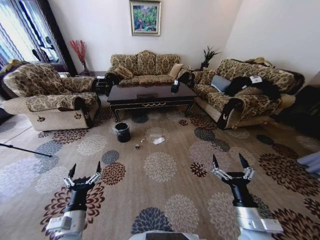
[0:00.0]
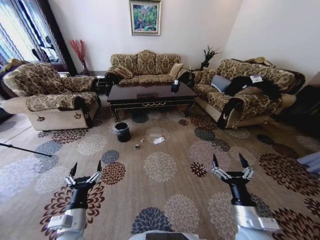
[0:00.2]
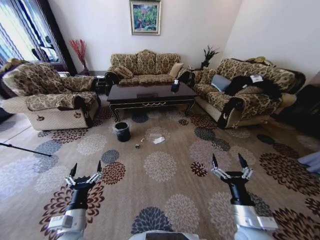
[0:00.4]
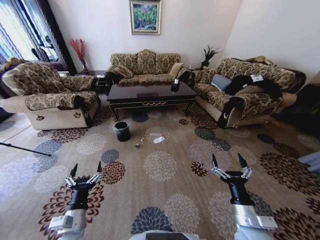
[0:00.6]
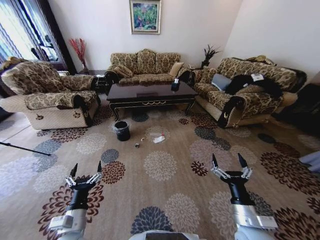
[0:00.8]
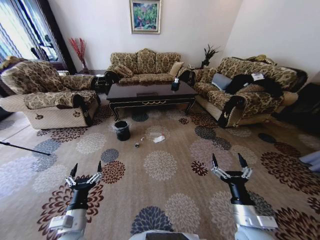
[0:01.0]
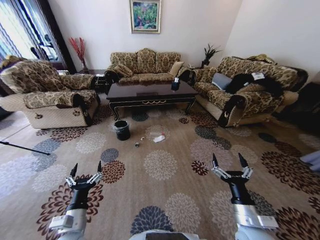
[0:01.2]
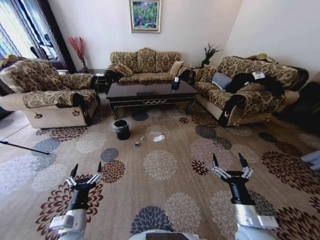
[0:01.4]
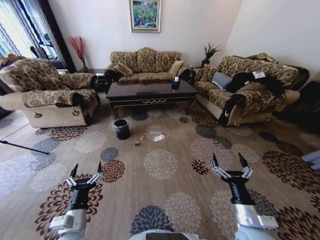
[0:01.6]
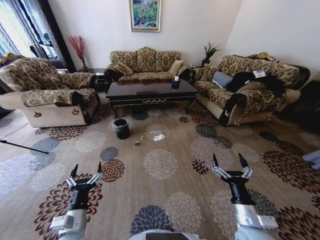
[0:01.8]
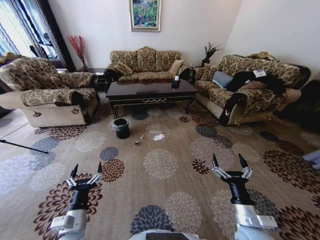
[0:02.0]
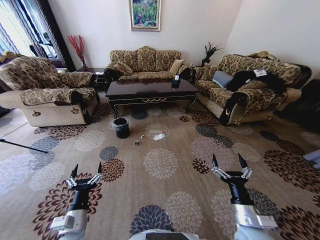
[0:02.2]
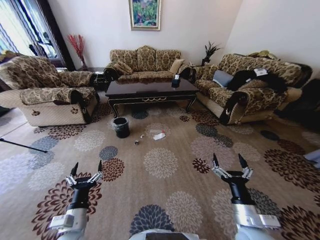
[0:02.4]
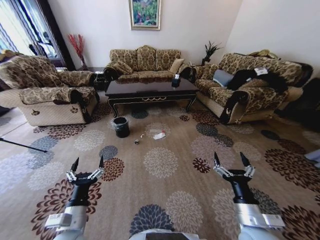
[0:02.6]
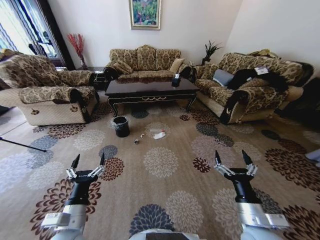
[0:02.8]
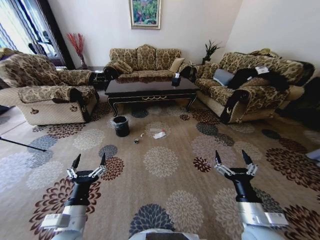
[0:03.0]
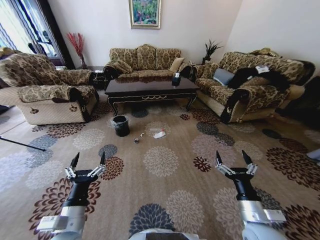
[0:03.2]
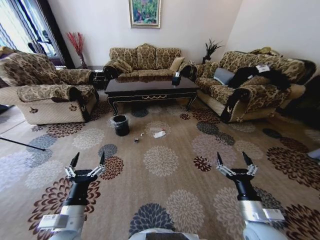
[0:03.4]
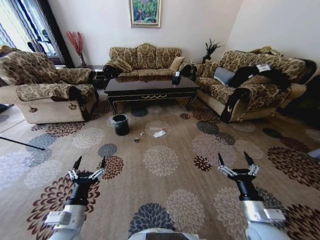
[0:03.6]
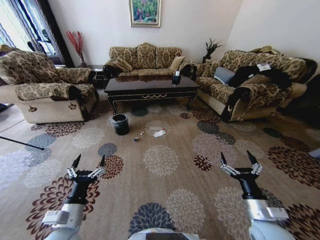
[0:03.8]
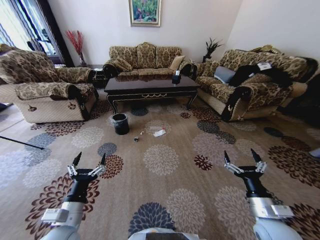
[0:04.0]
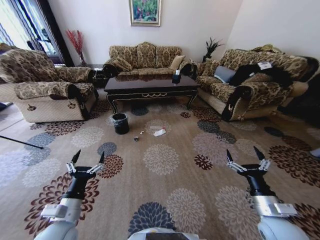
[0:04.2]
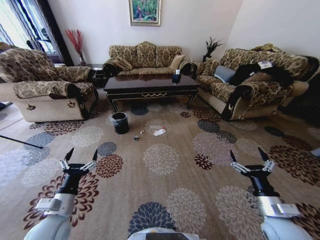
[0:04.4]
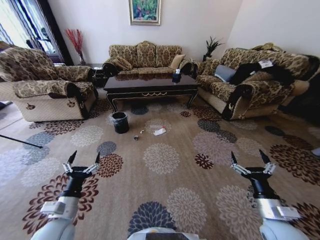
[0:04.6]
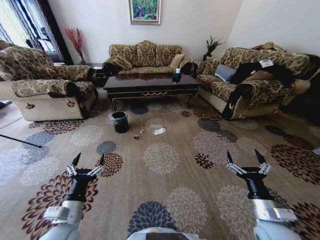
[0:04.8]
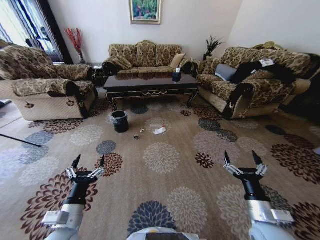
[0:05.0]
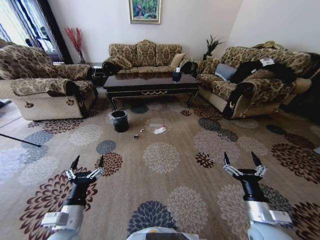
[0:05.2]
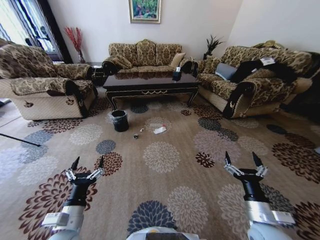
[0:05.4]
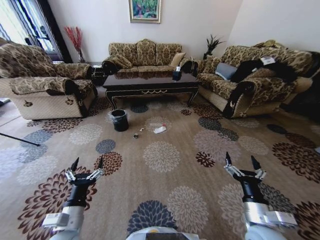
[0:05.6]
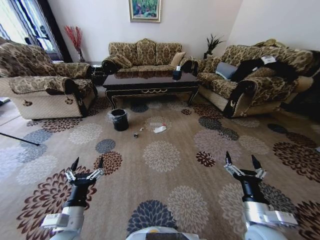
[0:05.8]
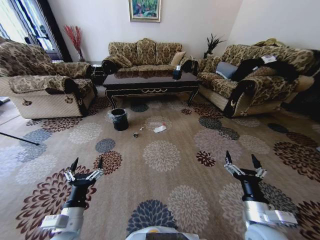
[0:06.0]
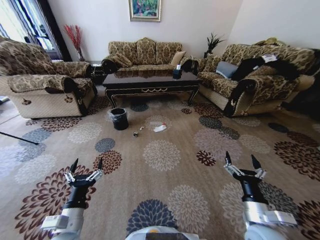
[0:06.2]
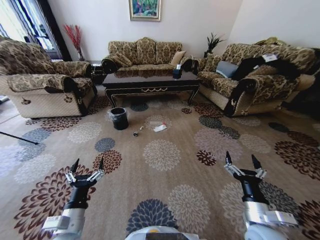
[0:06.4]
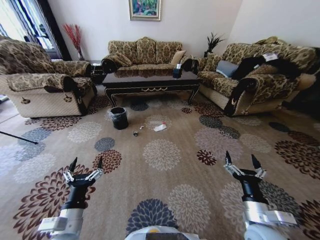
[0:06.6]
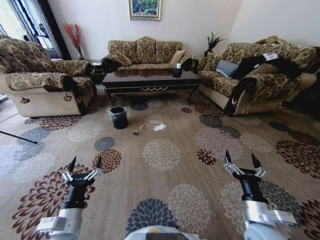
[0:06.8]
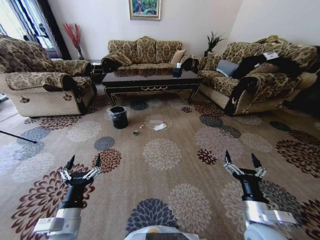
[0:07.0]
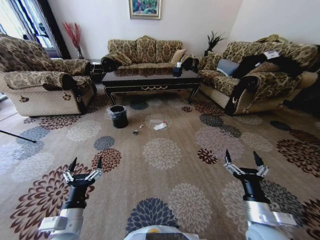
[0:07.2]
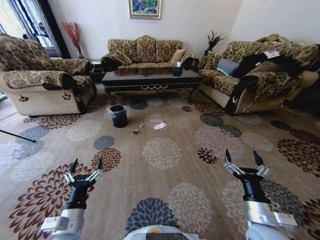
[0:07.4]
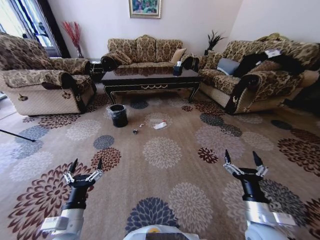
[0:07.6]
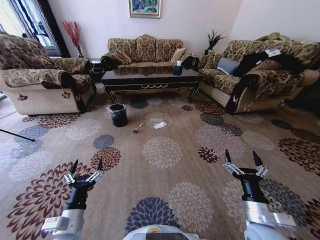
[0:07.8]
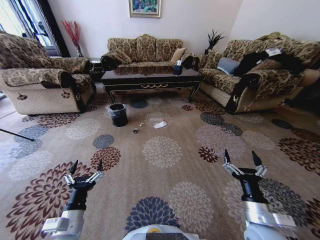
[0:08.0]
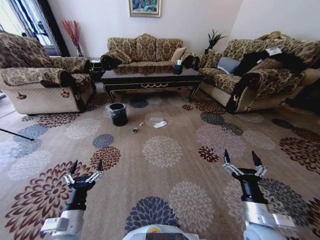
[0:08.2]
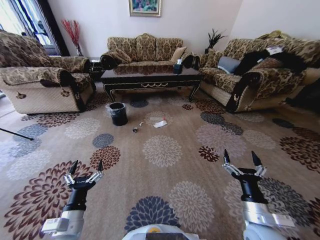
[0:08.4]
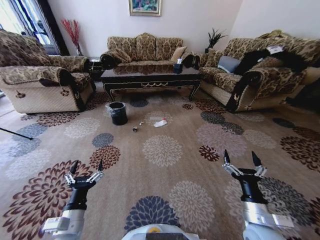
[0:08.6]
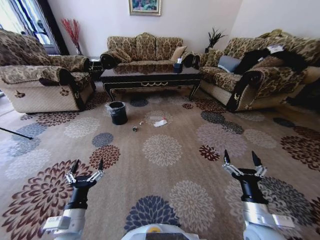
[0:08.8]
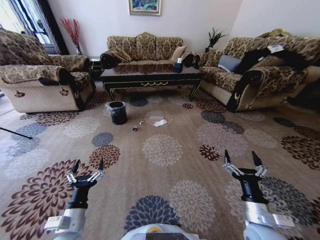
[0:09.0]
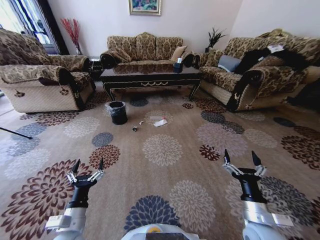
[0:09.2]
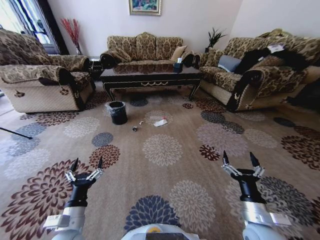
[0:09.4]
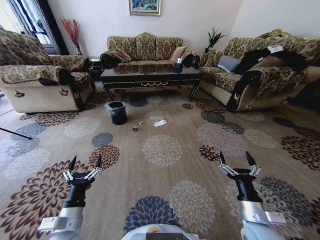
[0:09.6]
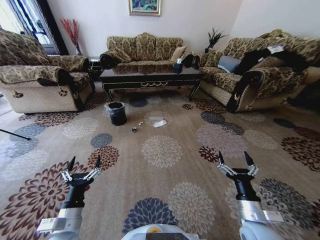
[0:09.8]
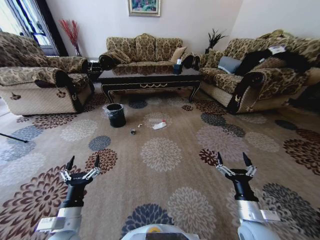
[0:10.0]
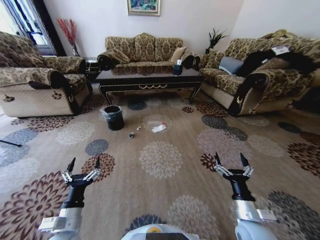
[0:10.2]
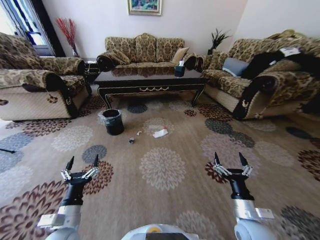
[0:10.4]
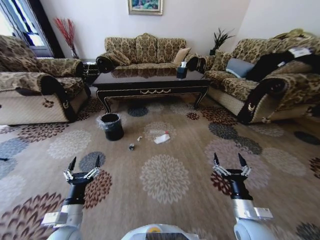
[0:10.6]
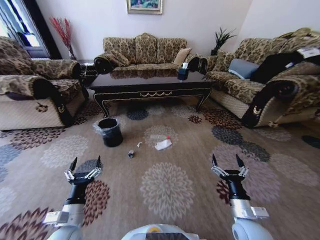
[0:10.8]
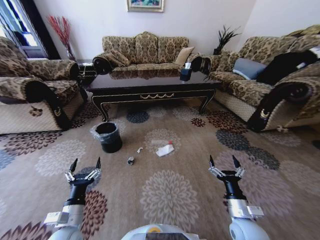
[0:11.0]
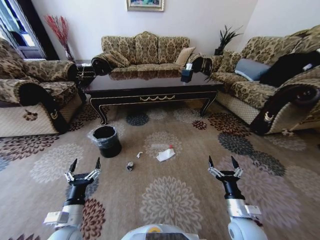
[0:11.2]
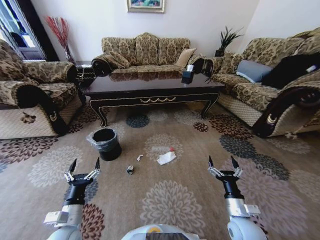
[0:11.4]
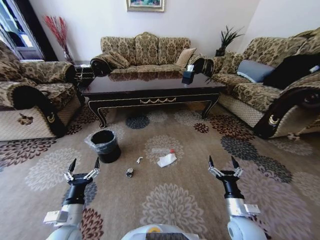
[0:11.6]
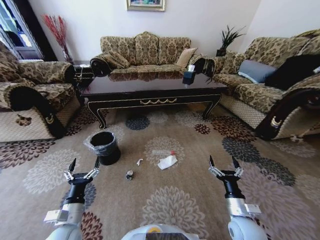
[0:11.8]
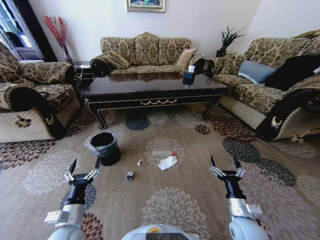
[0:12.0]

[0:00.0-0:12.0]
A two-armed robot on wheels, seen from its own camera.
Task of the whole recording: Move to the front of the table and pick up the trash from the floor, then place it into the trash bin.
0:01.6 to 0:03.0: The left gripper moves upward, about 5 cm.
0:03.0 to 0:04.4: The right gripper is displaced to the right by about 10 cm. The left gripper moves to the left, some 5 cm.
0:04.4 to 0:06.0: The left gripper is displaced to the right by roughly 5 cm. The right gripper goes about 5 cm to the left.

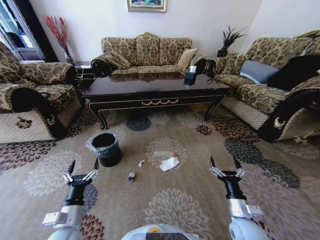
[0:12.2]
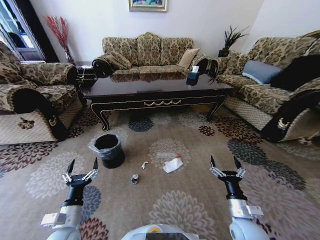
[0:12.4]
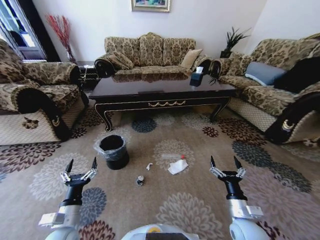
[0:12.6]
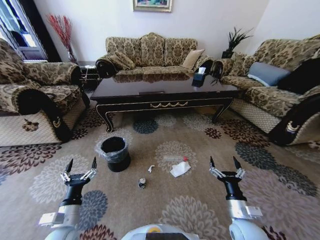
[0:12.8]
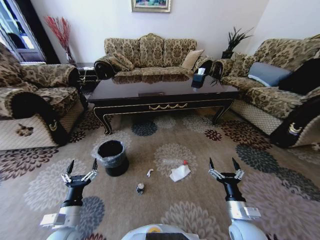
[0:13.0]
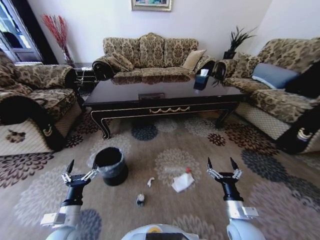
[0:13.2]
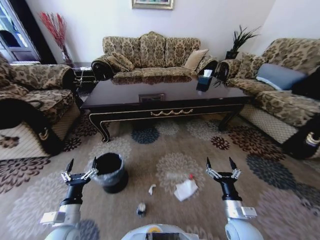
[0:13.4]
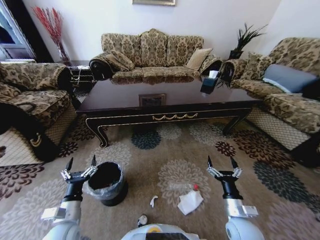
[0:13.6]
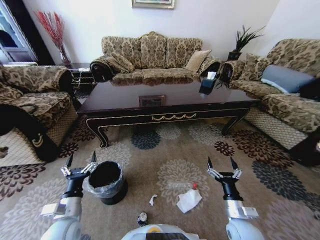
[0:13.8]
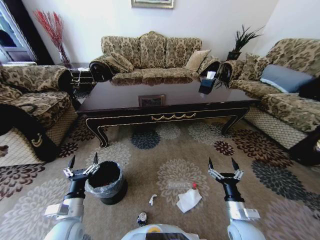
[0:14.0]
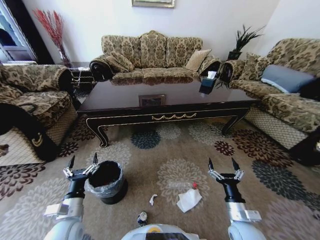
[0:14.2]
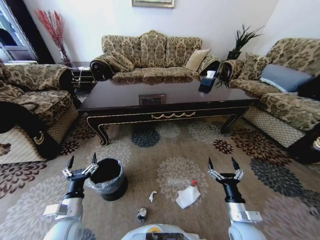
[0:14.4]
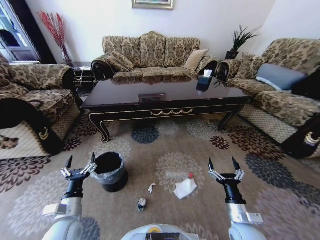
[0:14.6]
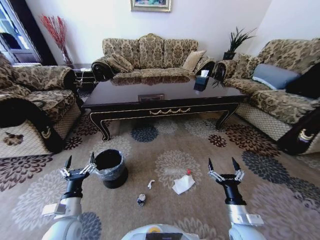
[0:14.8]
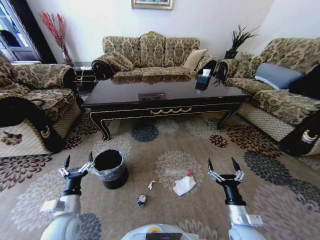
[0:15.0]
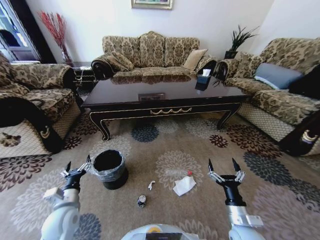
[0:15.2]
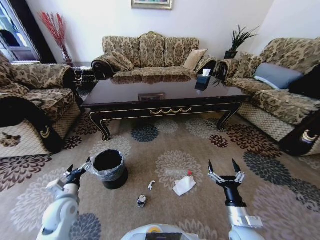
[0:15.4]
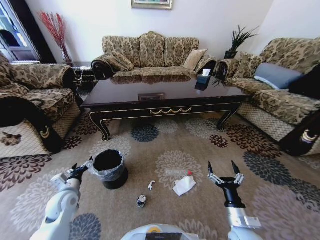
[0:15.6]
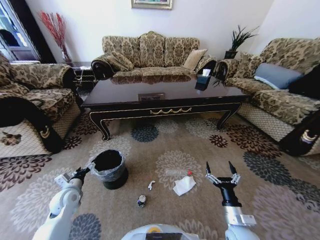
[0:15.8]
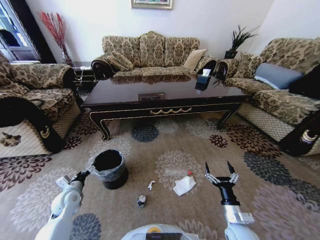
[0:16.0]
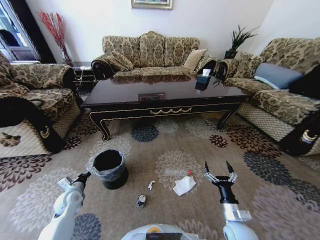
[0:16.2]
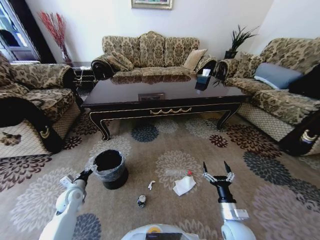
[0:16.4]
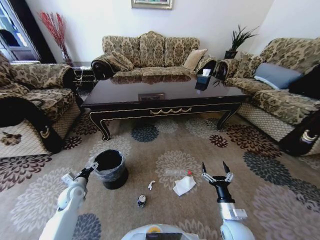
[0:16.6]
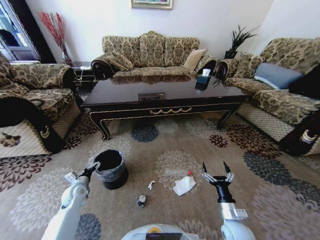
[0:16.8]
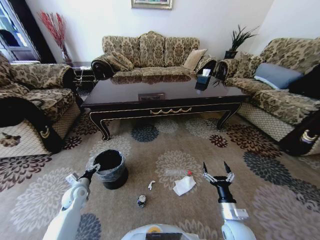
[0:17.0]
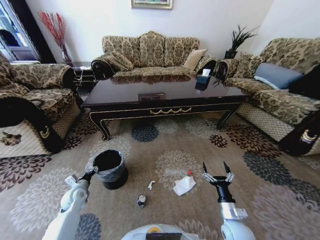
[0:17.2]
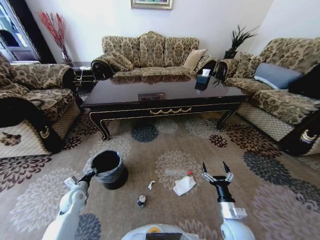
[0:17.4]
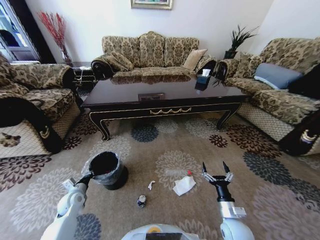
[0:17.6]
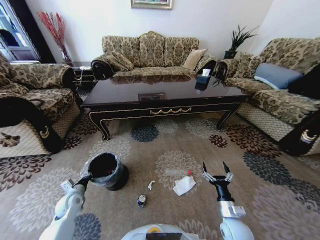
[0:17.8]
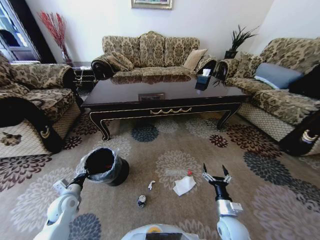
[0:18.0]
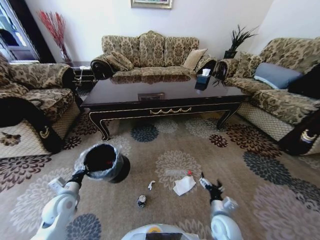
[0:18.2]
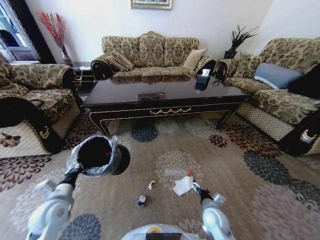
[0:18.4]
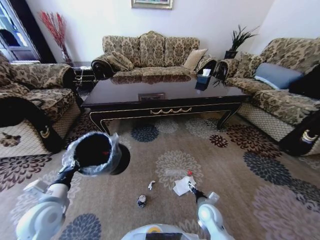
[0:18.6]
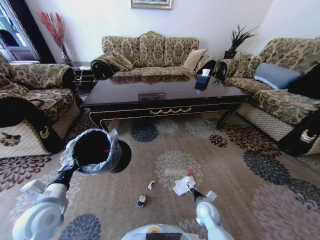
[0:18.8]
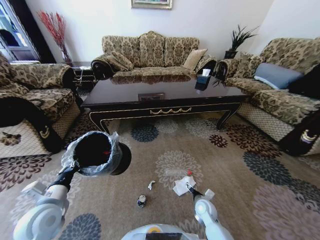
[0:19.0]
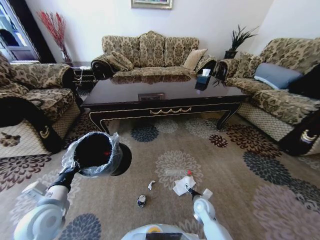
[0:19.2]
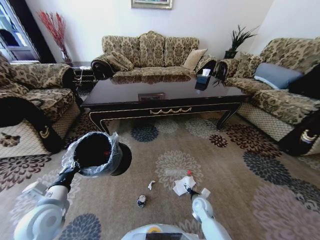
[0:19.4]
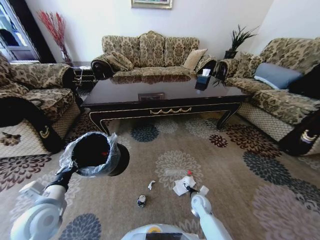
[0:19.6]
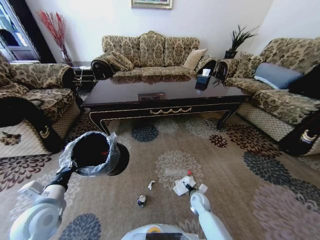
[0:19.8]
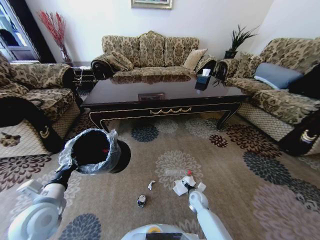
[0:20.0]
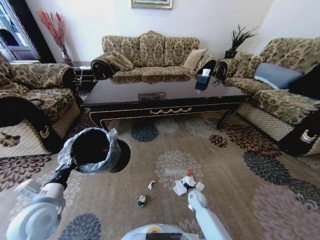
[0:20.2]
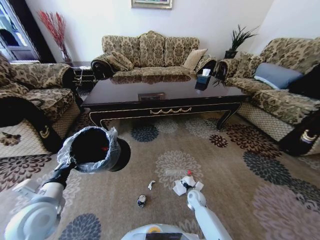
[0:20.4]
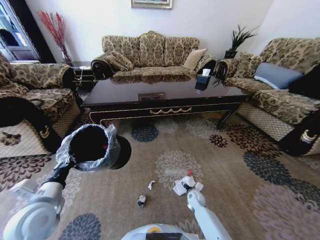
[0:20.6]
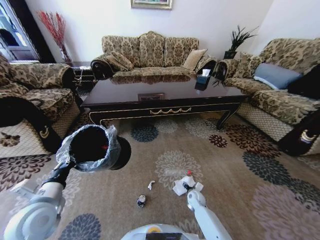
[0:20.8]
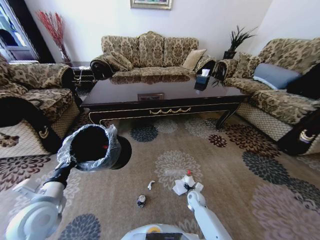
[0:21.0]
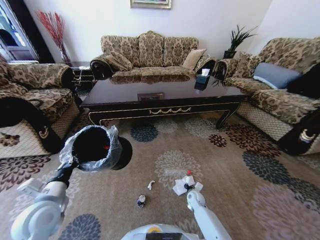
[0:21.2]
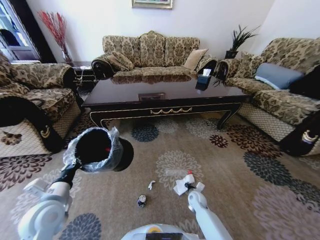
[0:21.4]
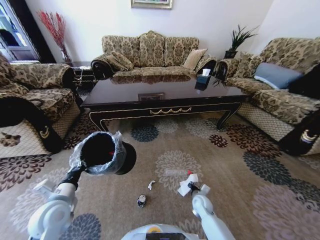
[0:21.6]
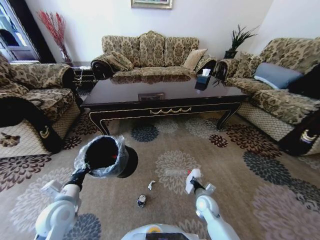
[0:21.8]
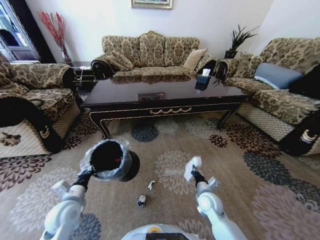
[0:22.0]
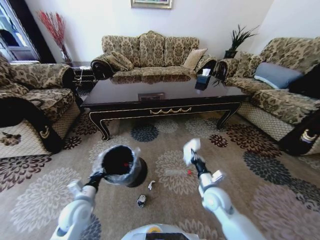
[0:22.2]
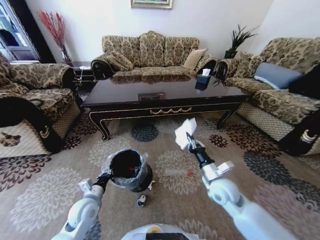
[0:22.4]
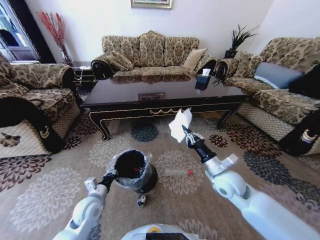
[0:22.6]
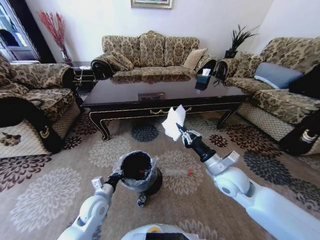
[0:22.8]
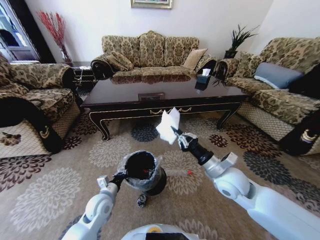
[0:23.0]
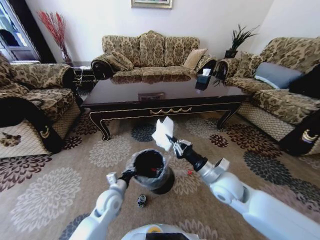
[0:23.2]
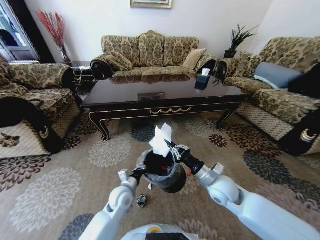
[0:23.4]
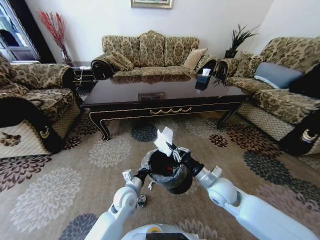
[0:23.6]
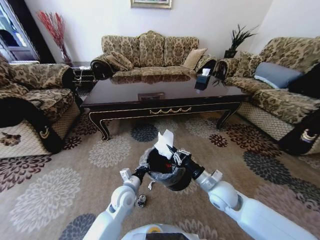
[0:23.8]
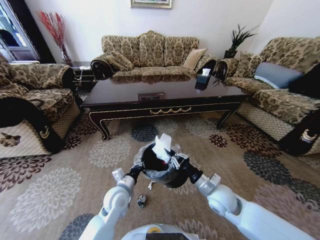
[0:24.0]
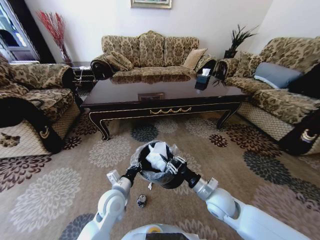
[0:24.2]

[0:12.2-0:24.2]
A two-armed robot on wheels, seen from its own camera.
Task of the whole recording: Move to the front of the table and pick up the trash from the floor, then place it into the trash bin.
0:13.8 to 0:15.2: The left gripper changes place by some 5 cm.
0:15.2 to 0:16.6: The left gripper moves forward, downward and to the left, roughly 15 cm. The right gripper changes place by some 5 cm.
0:16.6 to 0:18.2: The left gripper travels upward and backward by roughly 10 cm, and closes.
0:18.2 to 0:19.8: The left gripper shifts about 10 cm upward and backward; the right gripper moves forward and downward, approximately 15 cm.
0:19.8 to 0:21.2: The right gripper closes its fingers.
0:21.2 to 0:22.6: The left gripper goes about 15 cm downward and to the right. Meanwhile the right gripper moves upward, roughly 30 cm, and closes up.
0:22.6 to 0:24.2: The left gripper is displaced to the right by about 10 cm. The right gripper heads downward, covering roughly 5 cm.
